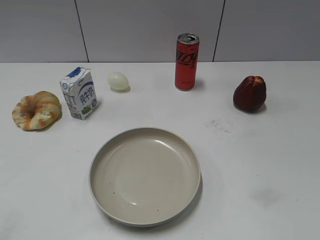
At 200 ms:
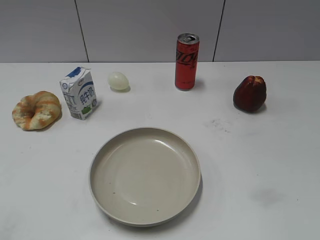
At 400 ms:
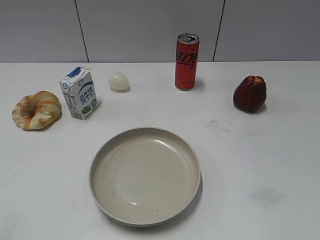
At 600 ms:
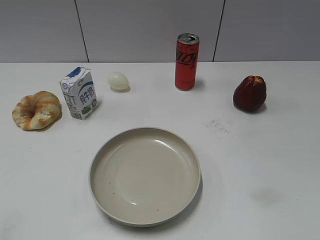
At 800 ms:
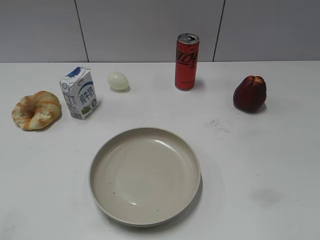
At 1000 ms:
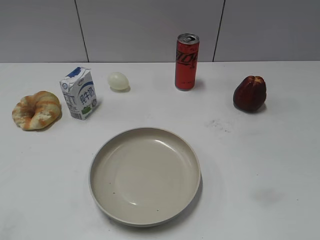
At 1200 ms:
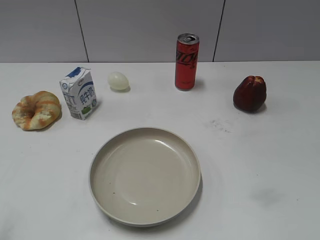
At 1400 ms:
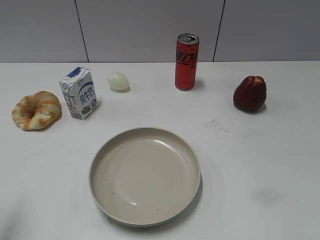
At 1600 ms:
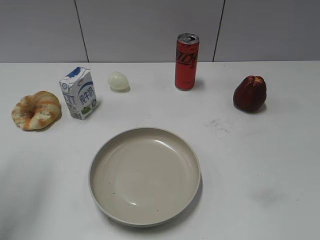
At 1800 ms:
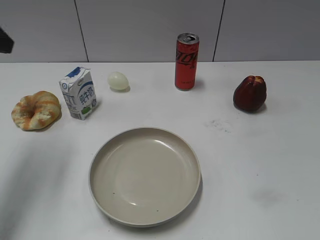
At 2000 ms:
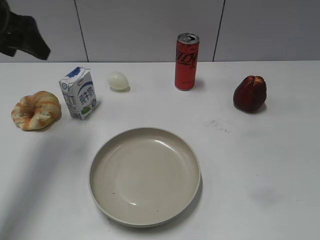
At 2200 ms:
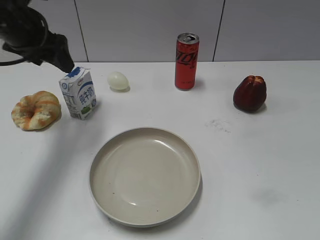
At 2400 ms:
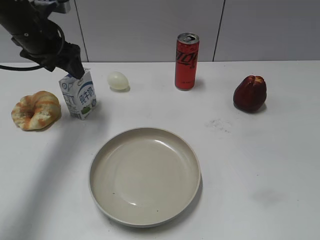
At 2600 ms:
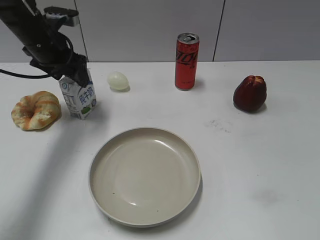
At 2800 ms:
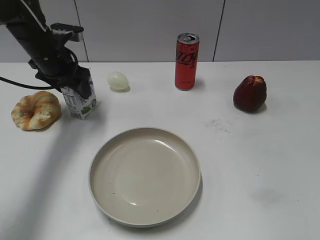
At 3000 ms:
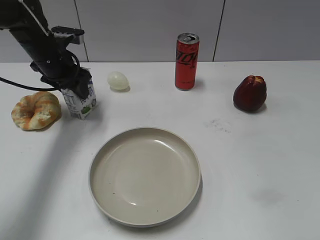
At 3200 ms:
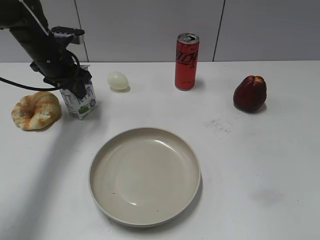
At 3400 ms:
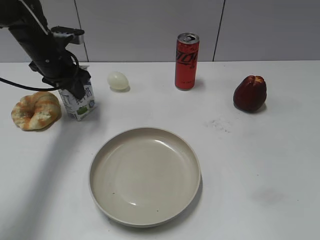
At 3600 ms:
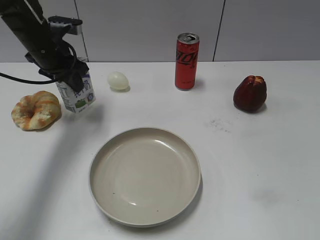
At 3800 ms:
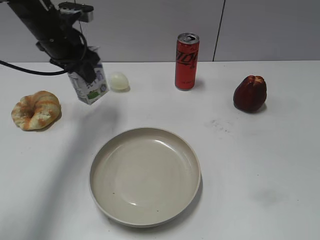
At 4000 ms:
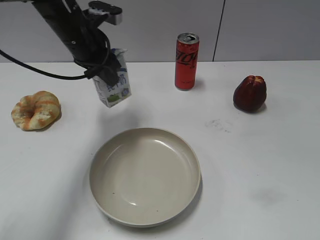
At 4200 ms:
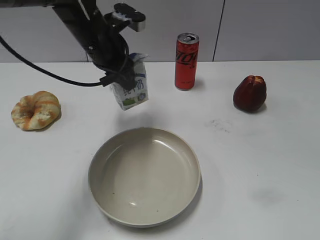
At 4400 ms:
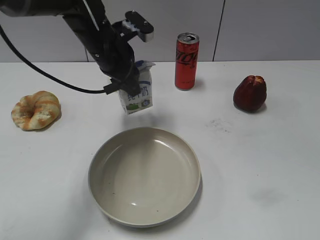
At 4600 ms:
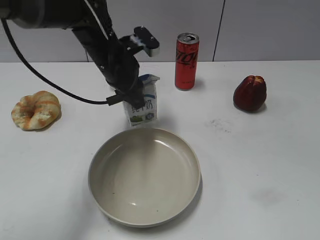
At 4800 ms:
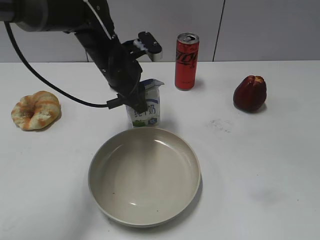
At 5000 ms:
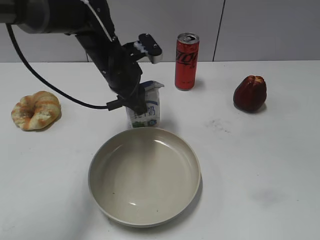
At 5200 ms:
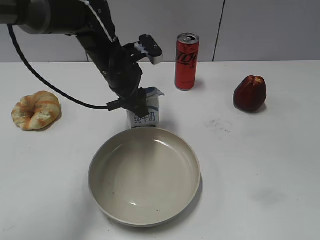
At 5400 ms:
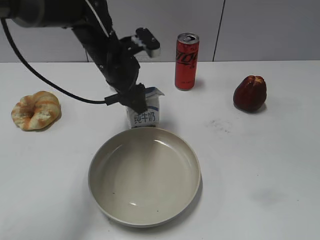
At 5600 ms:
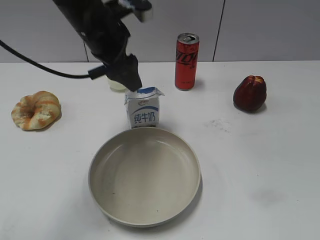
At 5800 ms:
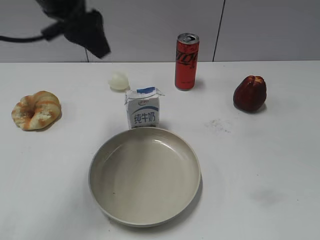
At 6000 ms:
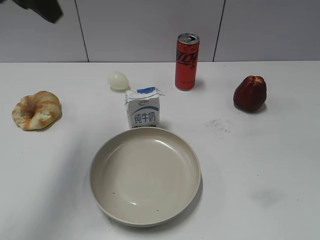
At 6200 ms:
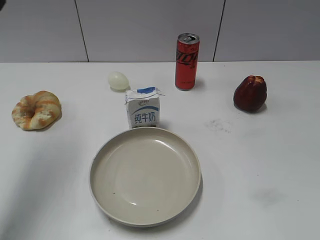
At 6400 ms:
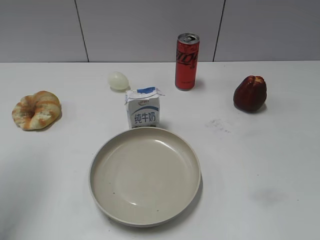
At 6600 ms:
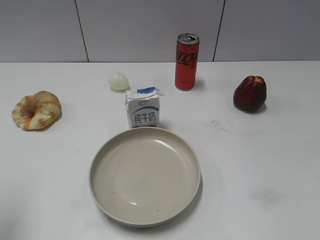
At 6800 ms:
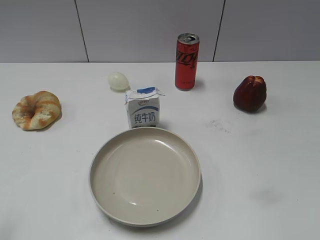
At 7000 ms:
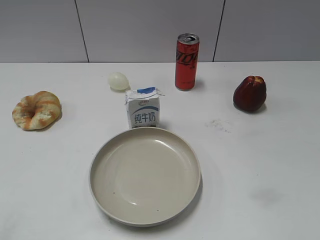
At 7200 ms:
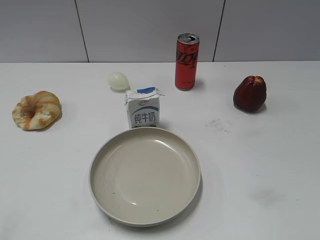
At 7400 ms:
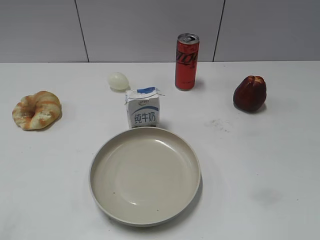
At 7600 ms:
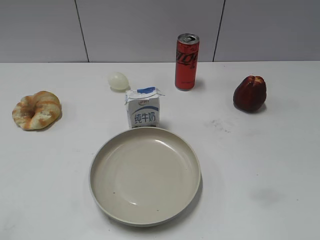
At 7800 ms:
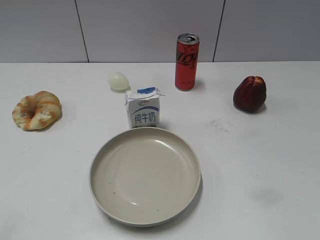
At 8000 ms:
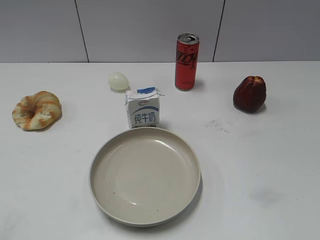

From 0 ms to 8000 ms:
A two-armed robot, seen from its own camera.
Step, from 1000 ms to 3200 ms: Grasp the milk with left gripper.
Step, from 3400 ms to 5600 ms: Place the milk on the table with left gripper.
From 1600 ms to 3200 ms: The left gripper heads forward, downward and to the right, covering about 30 cm, and closes.
From 3200 ms to 4800 ms: The left gripper goes about 15 cm to the right and backward.
From 4800 ms to 6400 ms: The left gripper moves to the left, upward and backward, roughly 35 cm, and opens up.
From 6400 ms to 8000 ms: The left gripper travels backward by roughly 20 cm.
